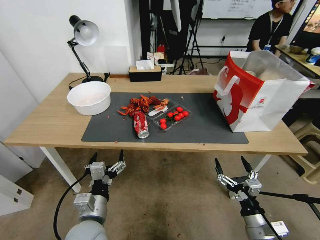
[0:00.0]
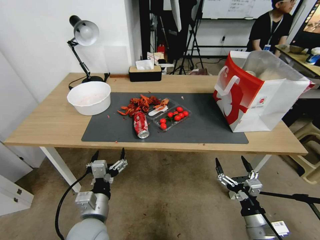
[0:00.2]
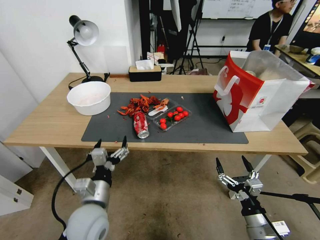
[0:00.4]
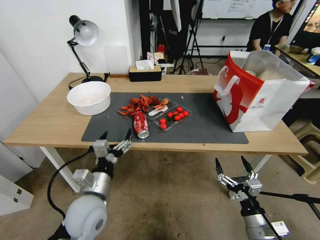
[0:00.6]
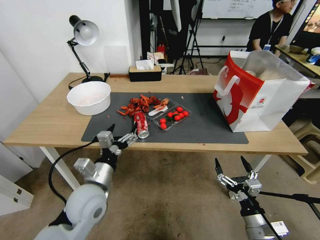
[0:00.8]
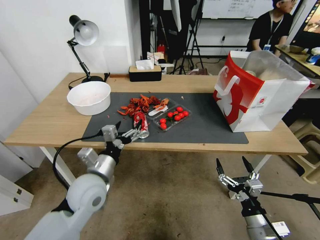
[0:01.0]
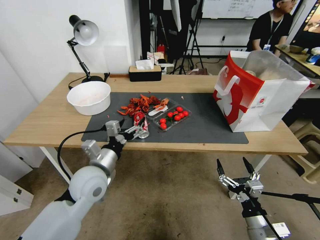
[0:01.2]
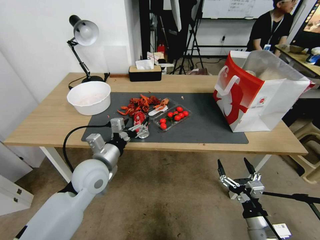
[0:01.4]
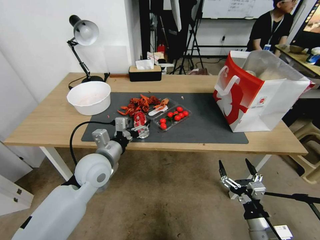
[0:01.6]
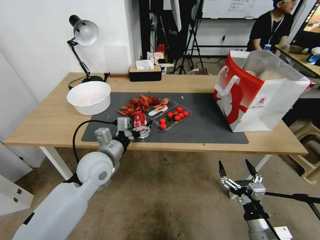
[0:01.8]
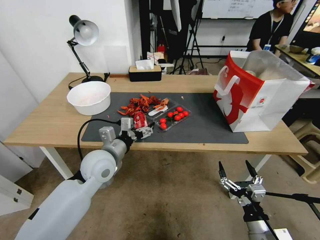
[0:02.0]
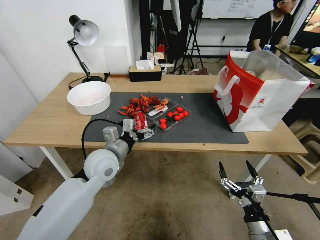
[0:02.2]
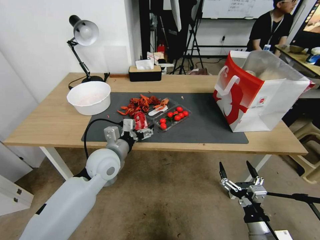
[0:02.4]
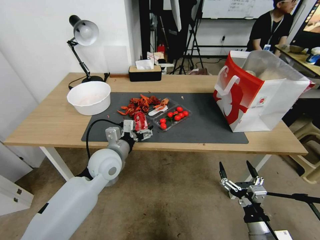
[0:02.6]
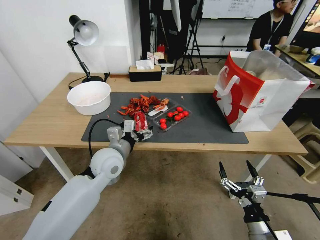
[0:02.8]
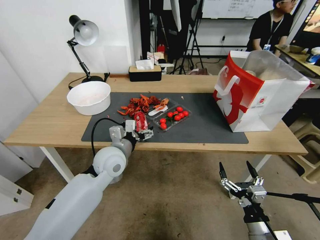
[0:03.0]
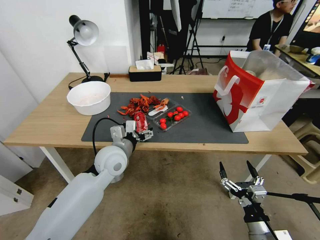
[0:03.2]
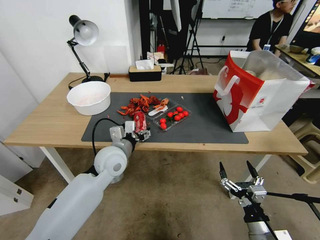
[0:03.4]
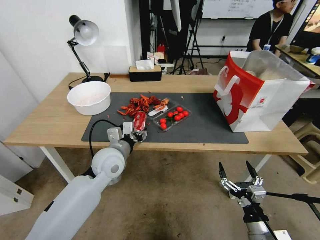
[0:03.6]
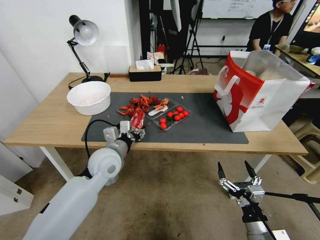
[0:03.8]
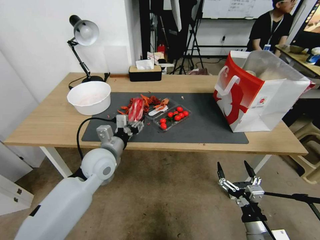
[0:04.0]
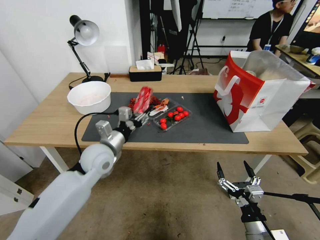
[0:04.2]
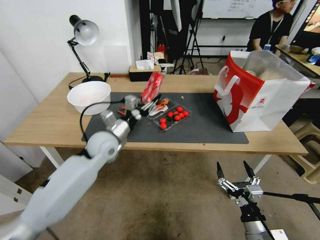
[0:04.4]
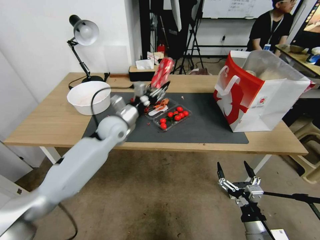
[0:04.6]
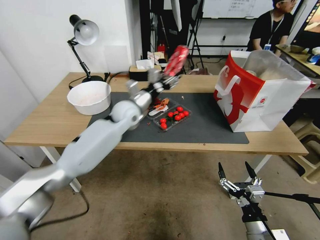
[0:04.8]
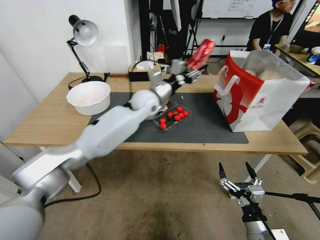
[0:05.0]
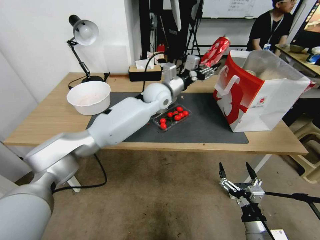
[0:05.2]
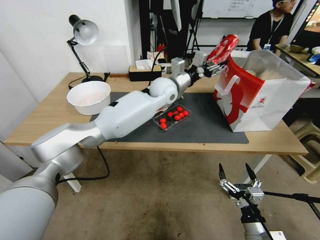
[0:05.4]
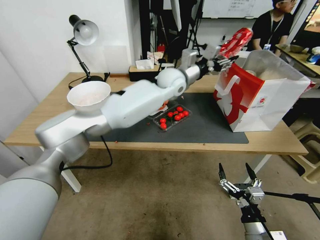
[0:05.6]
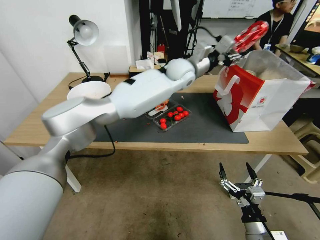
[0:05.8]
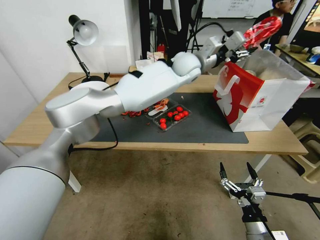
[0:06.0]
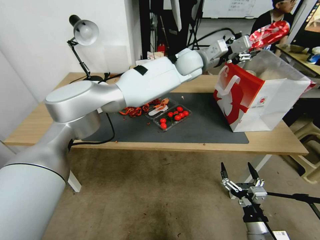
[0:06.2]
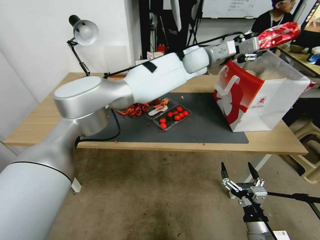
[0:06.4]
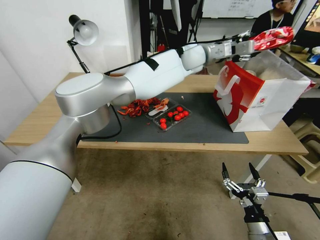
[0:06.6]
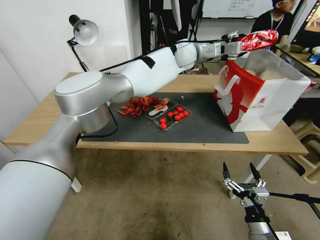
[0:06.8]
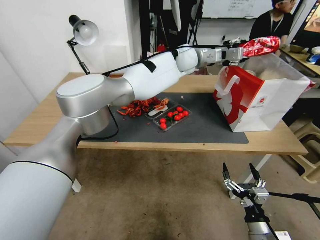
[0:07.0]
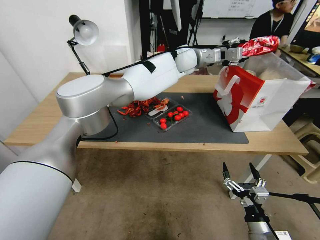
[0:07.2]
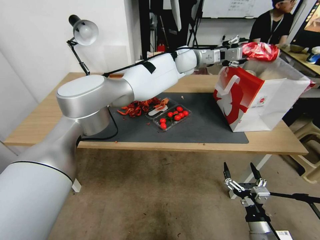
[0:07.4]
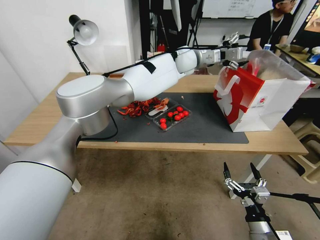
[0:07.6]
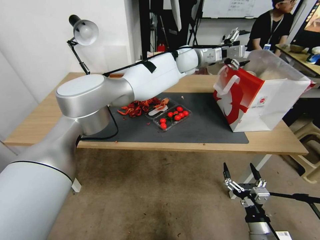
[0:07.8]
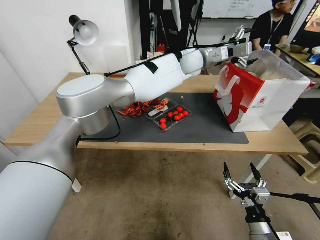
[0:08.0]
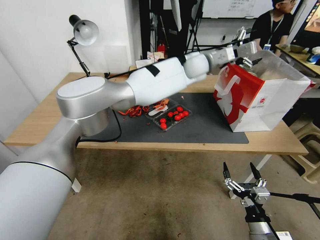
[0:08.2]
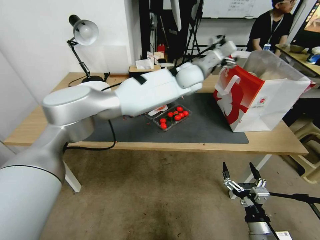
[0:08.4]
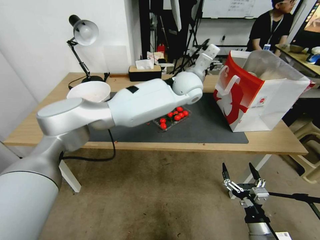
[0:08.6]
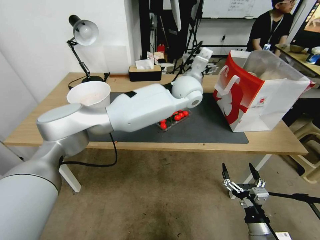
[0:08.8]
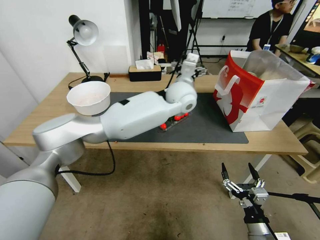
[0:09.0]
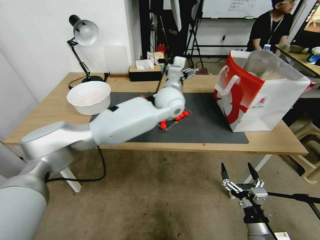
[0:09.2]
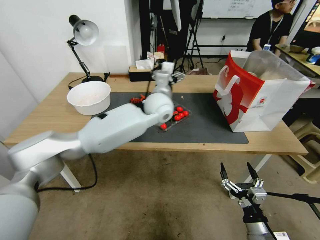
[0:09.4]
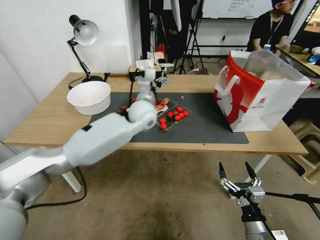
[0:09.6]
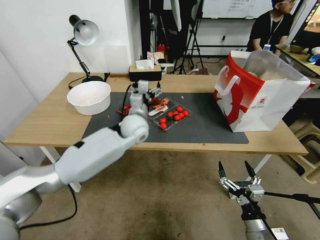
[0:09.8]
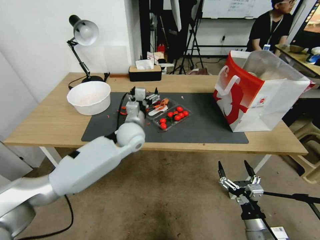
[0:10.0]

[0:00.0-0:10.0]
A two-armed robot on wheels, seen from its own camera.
0:00.0 to 0:01.4: The left gripper is displaced forward and upward by roughly 15 cm.
0:01.4 to 0:02.8: The grippers move only a little.
0:02.8 to 0:04.2: The left gripper closes up.
0:04.2 to 0:05.8: The left gripper moves to the right, forward and upward, approximately 35 cm.
0:05.8 to 0:07.2: The left gripper travels forward by some 5 cm.
0:07.2 to 0:08.6: The left gripper goes about 10 cm backward, and opens.
0:08.6 to 0:10.0: The left gripper goes roughly 25 cm to the left, downward and backward.

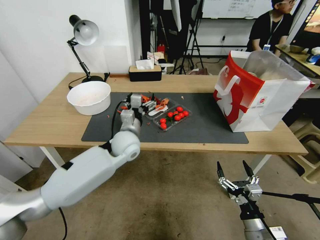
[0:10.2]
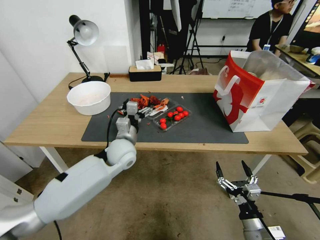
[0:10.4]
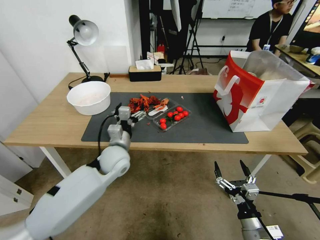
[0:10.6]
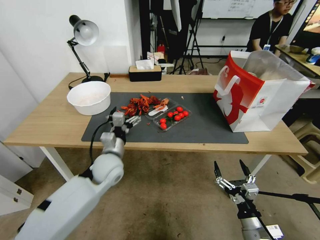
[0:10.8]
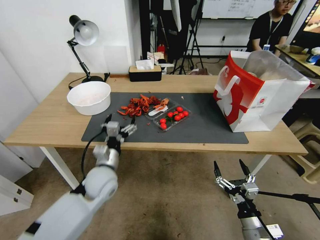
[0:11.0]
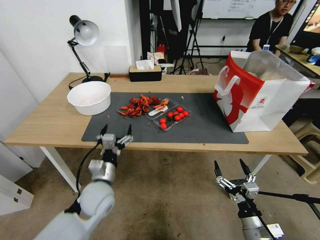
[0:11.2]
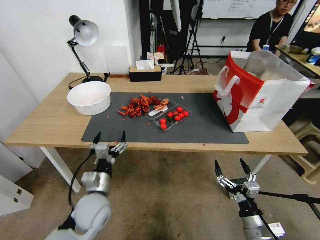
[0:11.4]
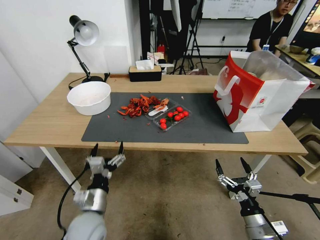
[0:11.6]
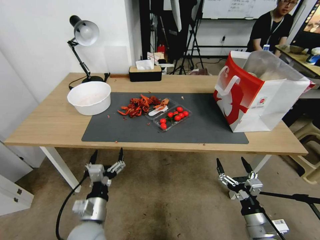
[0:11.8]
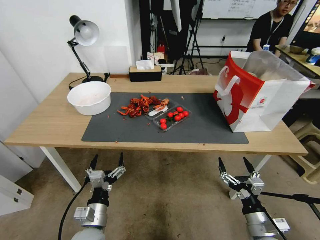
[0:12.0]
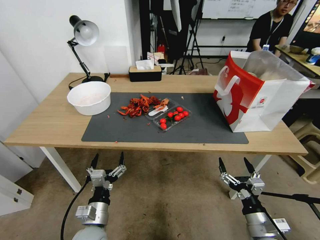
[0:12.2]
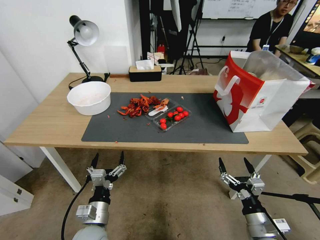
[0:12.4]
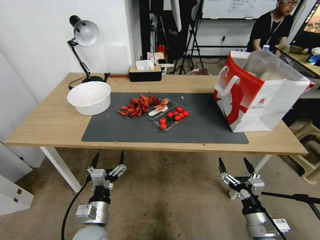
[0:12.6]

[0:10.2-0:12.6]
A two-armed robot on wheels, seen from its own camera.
0:10.2 to 0:11.4: The left gripper moves backward, downward and to the left, approximately 20 cm.
0:11.4 to 0:12.6: The left gripper shifts roughly 10 cm backward.
